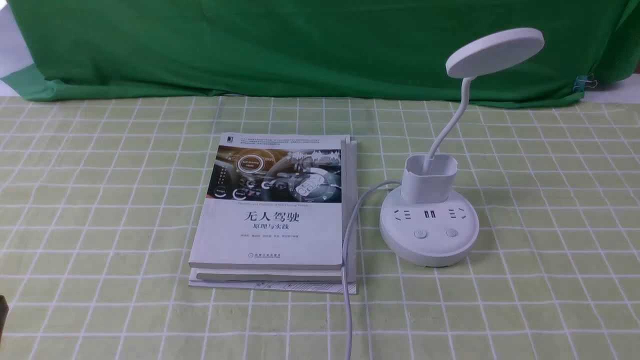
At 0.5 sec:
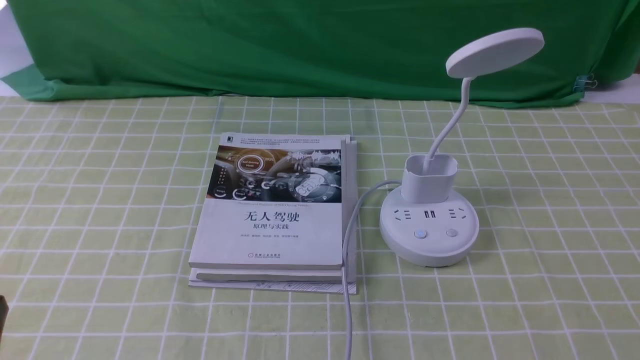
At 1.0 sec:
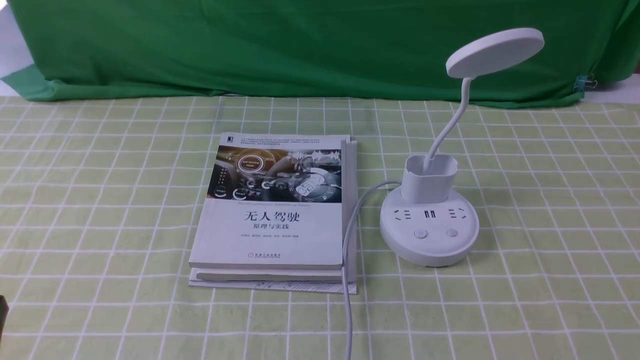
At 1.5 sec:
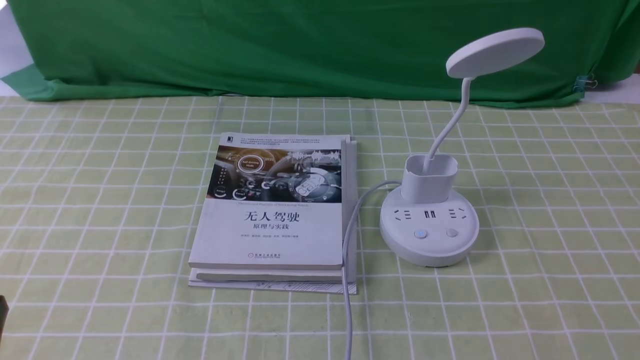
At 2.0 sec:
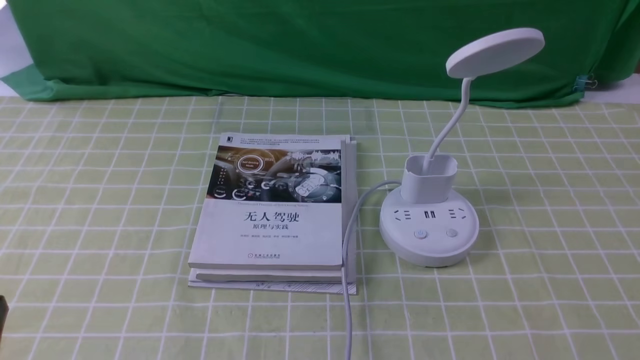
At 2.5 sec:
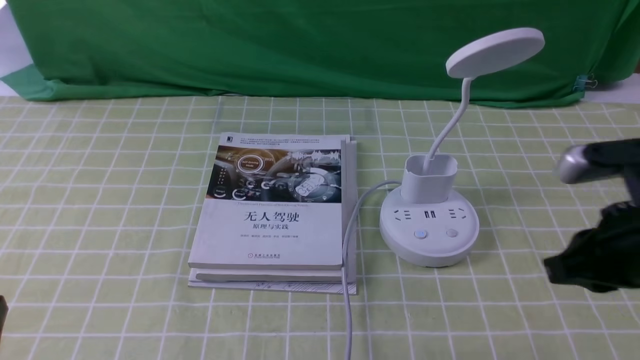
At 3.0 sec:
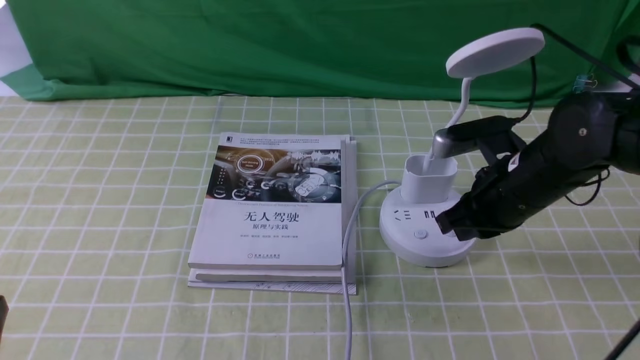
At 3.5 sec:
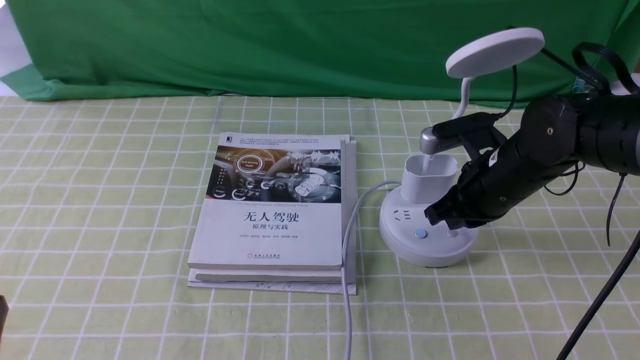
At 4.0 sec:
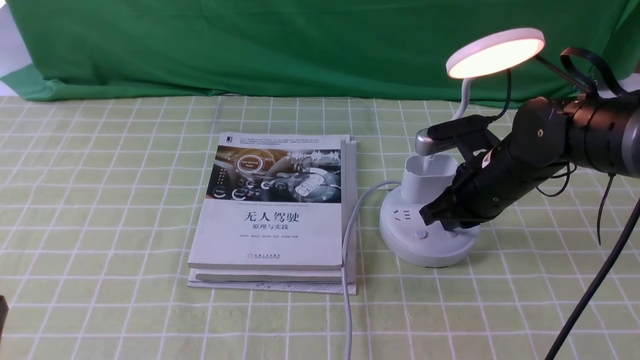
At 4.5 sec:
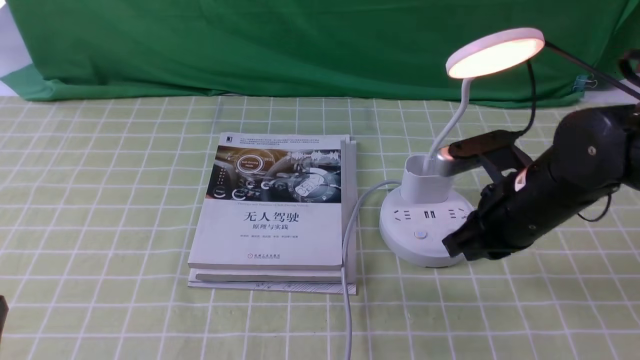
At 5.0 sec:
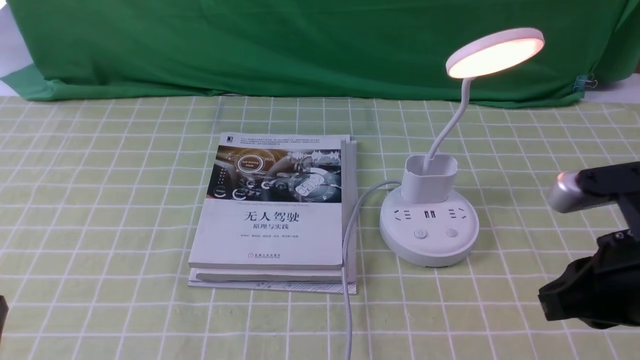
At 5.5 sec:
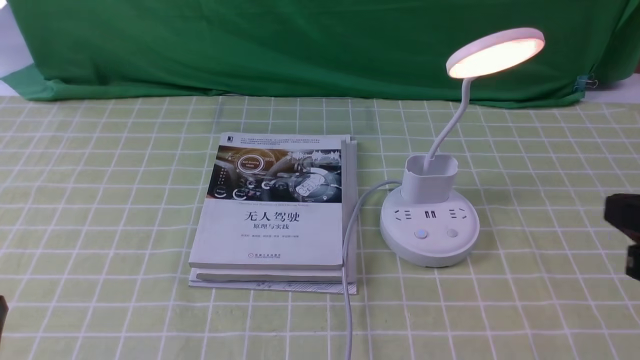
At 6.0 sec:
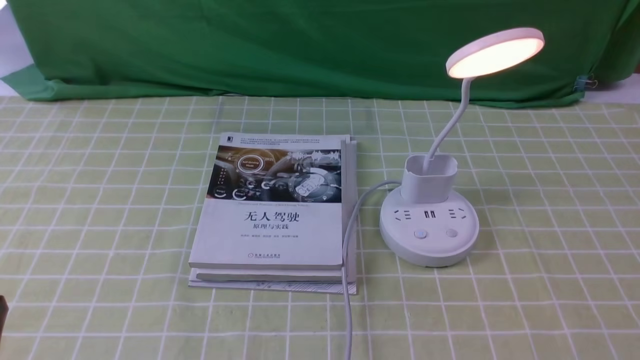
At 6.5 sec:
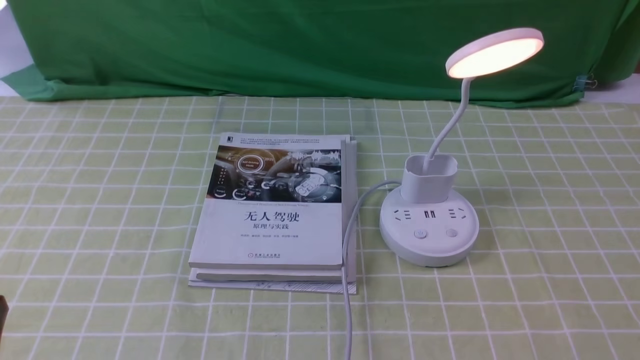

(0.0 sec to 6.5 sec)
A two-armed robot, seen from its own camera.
Step, 0.0 sec - 4.0 sec: use the right arm to press the button switch on the lamp holder.
2.0 sec - 4.5 sec: The right gripper travels forward and to the left by approximately 25 cm, and closes its fingers.
4.5 sec - 6.5 sec: The right gripper goes roughly 25 cm backward and to the right.
